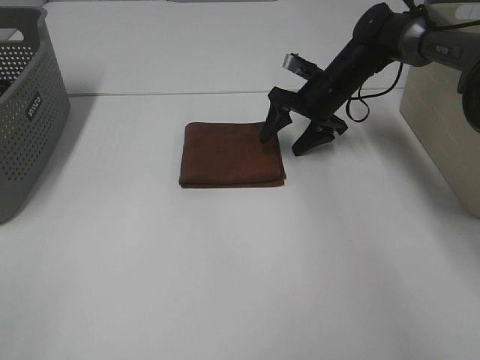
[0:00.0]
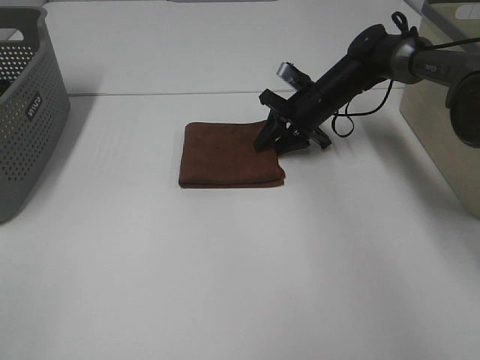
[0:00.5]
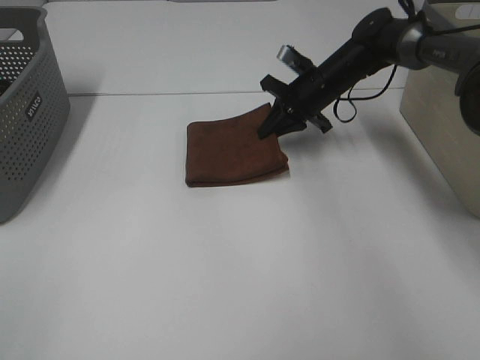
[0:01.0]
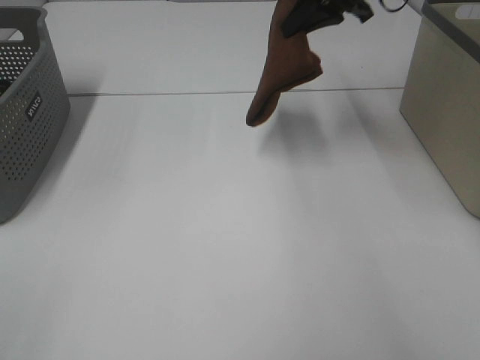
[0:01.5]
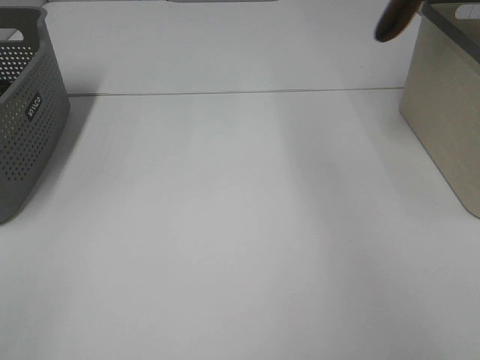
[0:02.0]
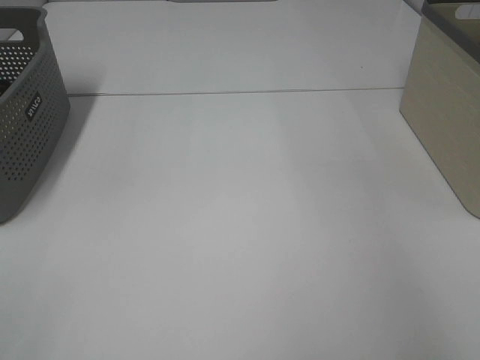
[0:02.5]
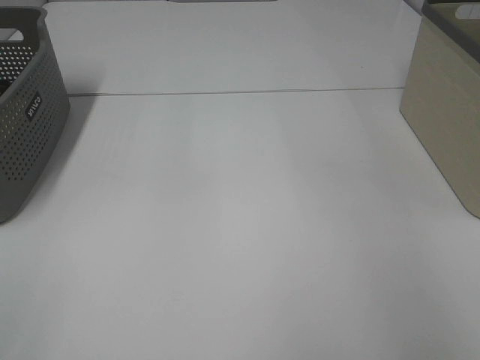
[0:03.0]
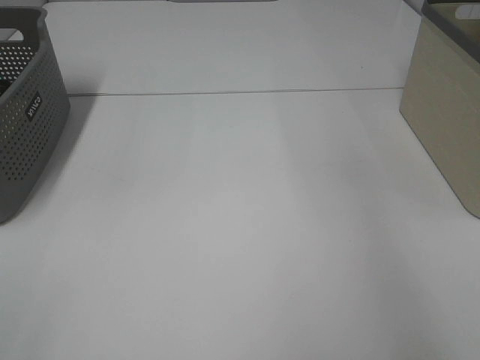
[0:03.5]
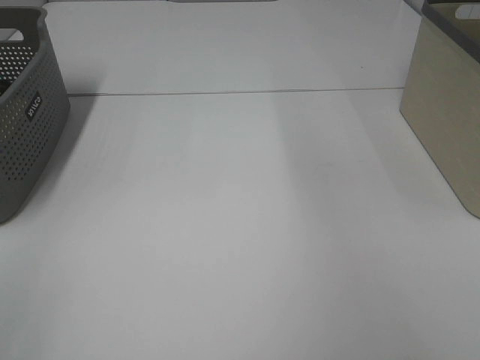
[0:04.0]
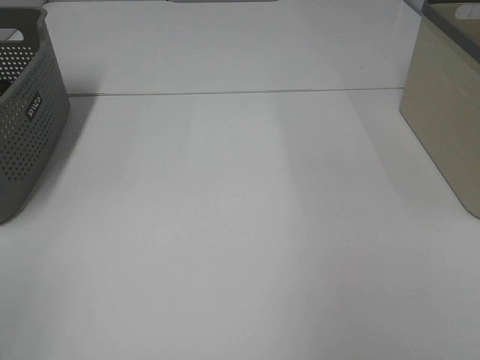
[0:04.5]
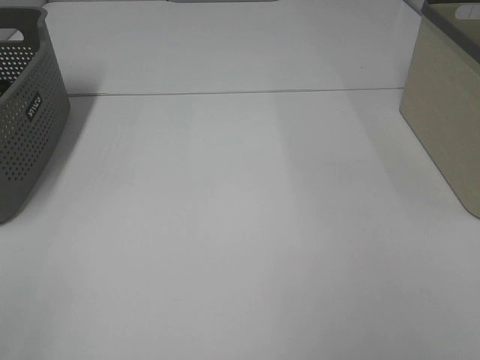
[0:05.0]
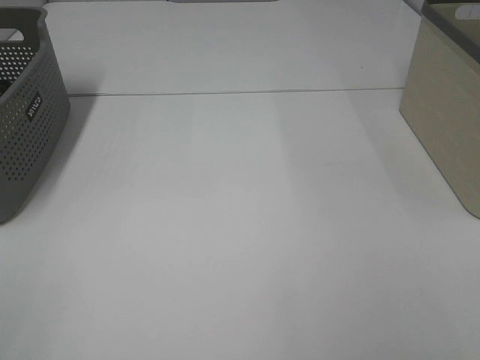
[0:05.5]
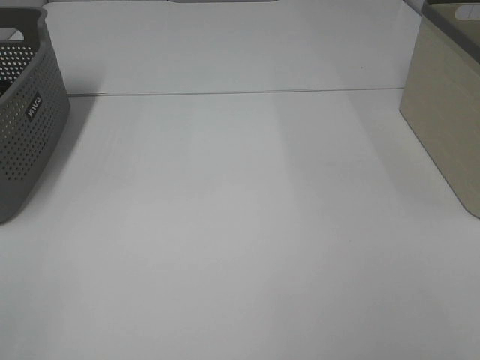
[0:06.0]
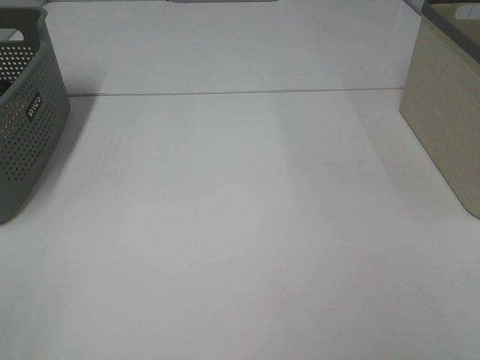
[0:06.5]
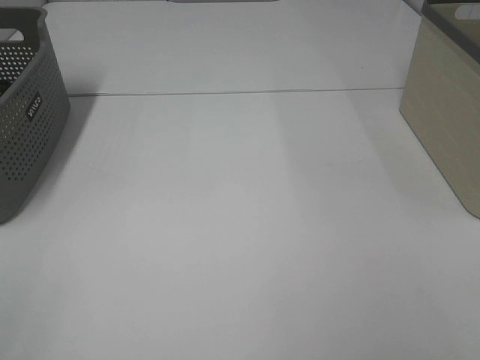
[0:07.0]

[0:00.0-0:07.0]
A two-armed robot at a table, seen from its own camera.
Step, 1.0 to 3.0 s: Right hand: place the brown towel in right basket.
0.0 to 2.0 s: The right gripper is displaced upward and to the right by roughly 35 cm, and closes its fingers.
2.0 to 3.5 s: The right gripper goes approximately 10 cm downward and to the right, and opens.

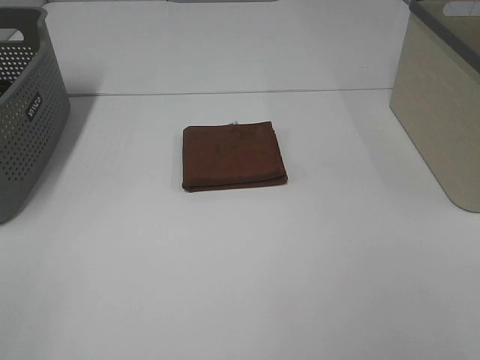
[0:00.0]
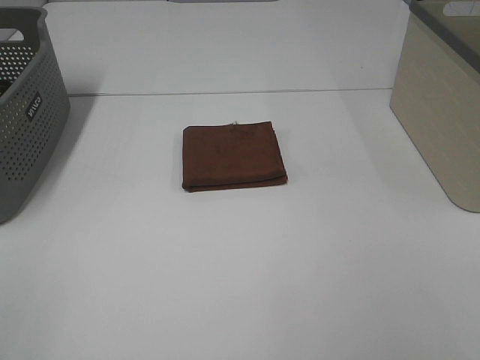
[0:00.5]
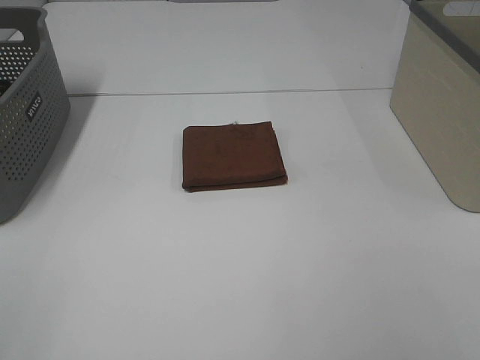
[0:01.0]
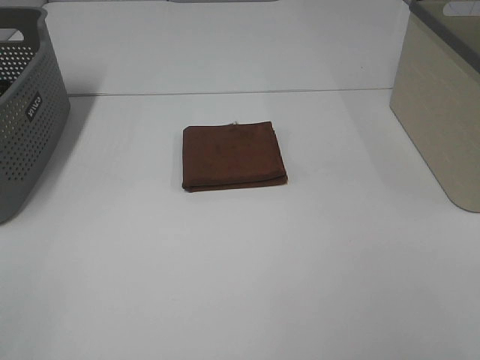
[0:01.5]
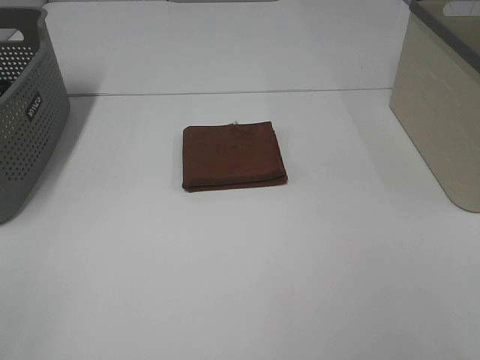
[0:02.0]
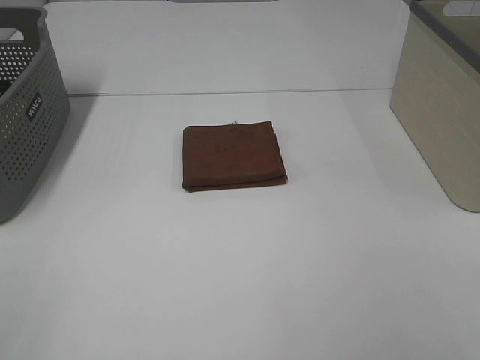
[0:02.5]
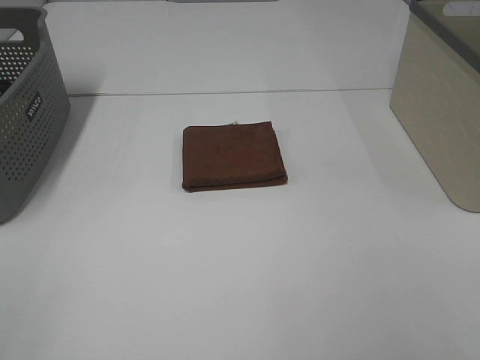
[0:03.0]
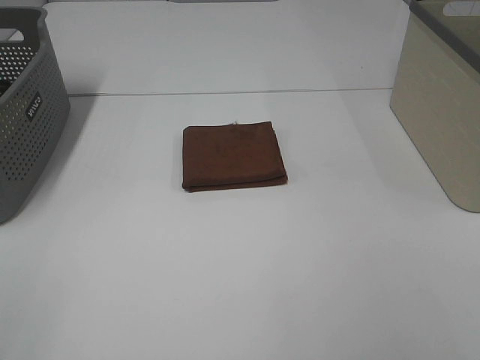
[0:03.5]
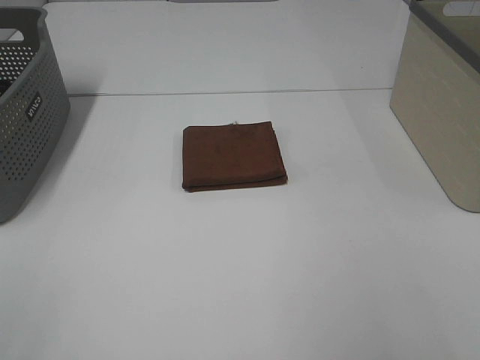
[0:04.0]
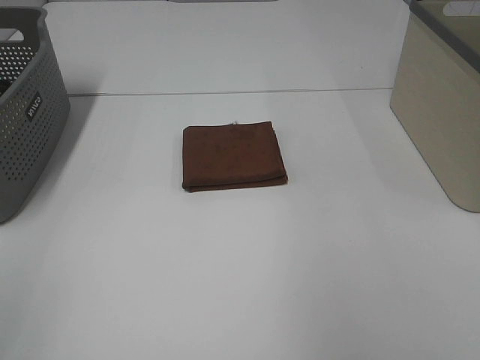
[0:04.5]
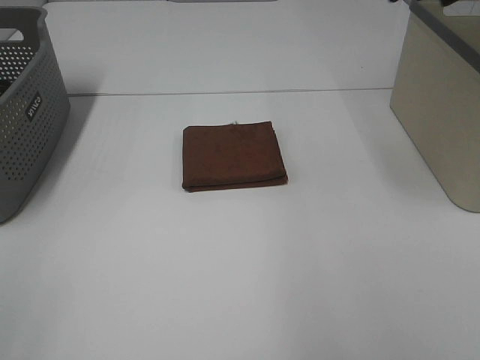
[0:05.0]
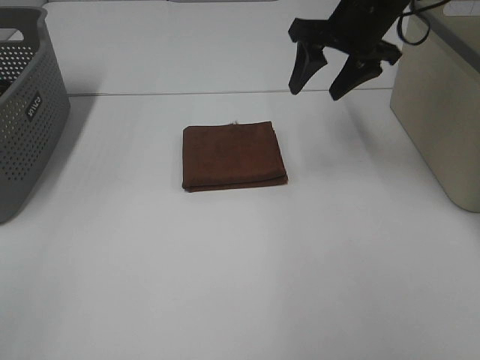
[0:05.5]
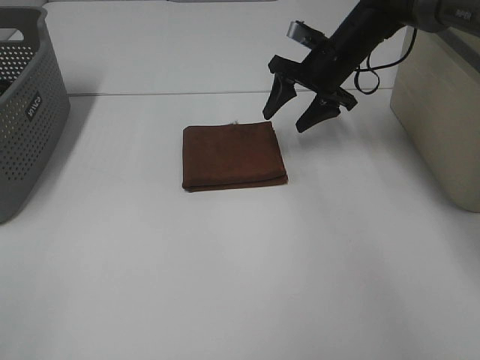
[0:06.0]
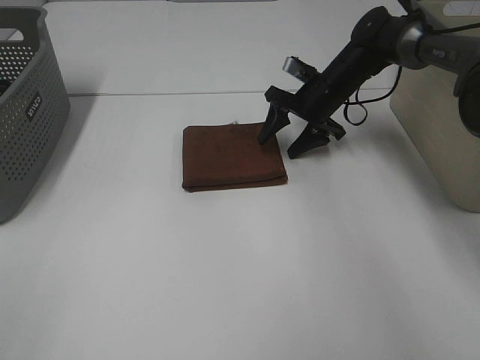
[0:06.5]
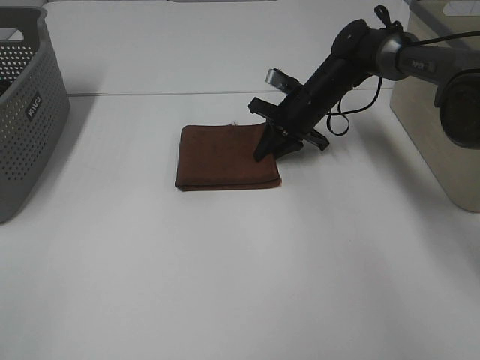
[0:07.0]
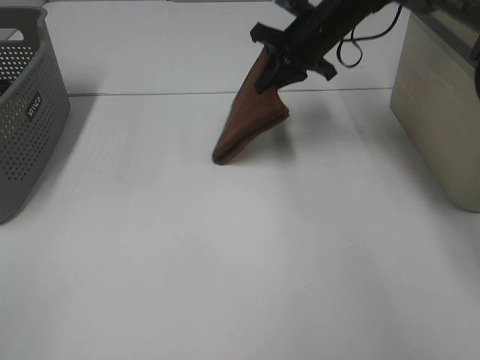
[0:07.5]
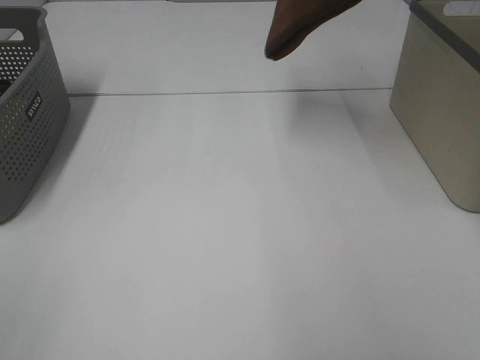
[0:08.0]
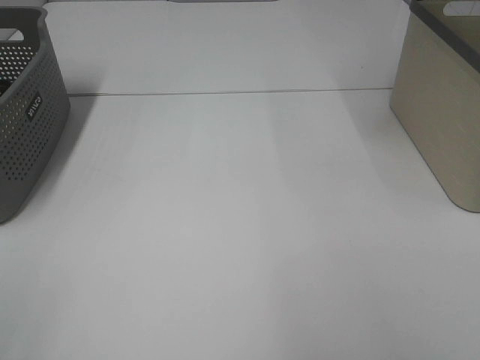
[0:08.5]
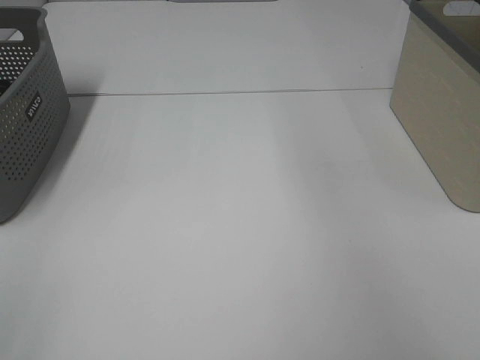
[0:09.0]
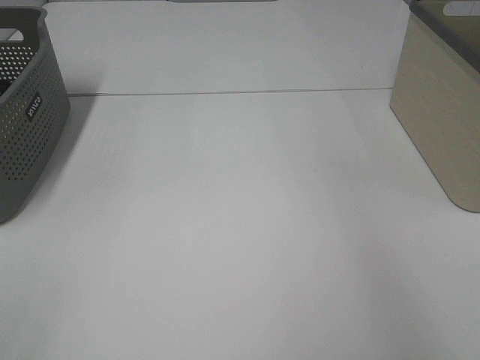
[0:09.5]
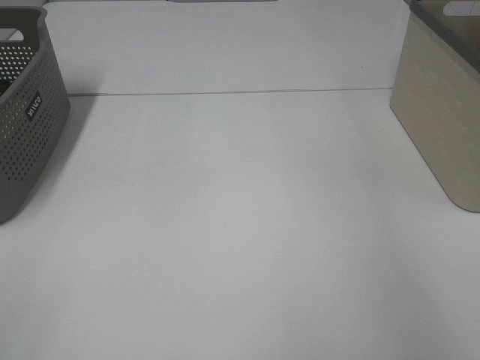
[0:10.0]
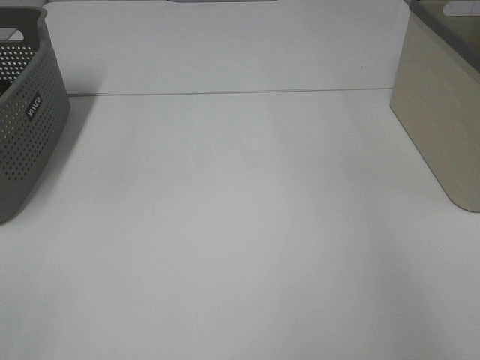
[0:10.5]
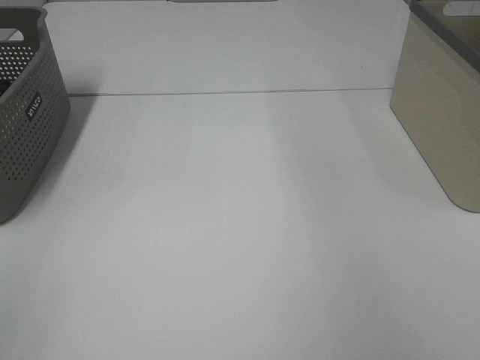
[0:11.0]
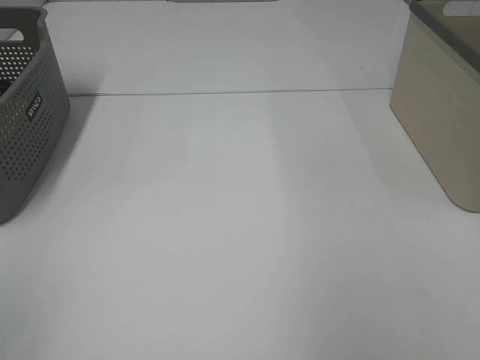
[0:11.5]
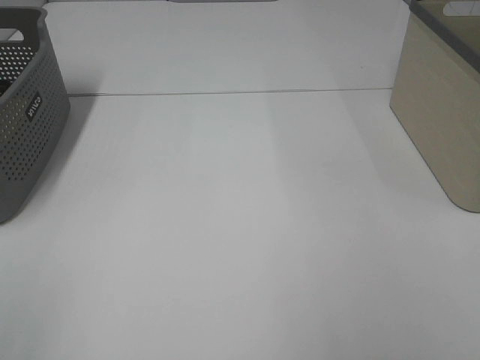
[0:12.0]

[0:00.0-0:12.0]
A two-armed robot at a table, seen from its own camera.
Step, 0.0 to 7.0 s: Right hand: grab the folded brown towel.
Step, 7.5 to 10.0 s: Right hand: place the brown towel in right basket.
0.0 to 2.0 s: Both grippers stay about where they are.
4.0 to 6.0 s: The right gripper travels forward by some 40 cm.
6.0 to 8.0 s: The right gripper moves upward, roughly 25 cm, and closes its fingers.
8.0 to 10.0 s: The right gripper moves to the right, approximately 25 cm, and opens up.

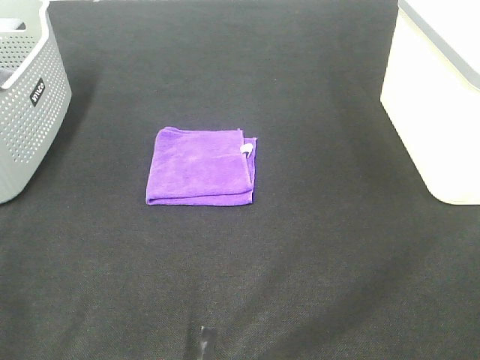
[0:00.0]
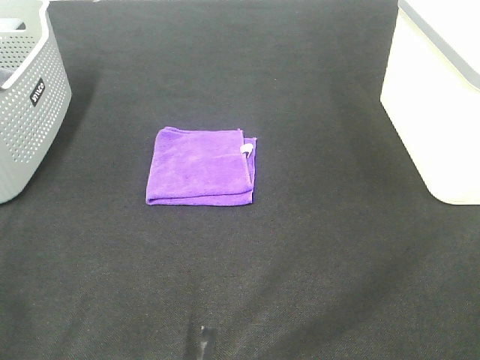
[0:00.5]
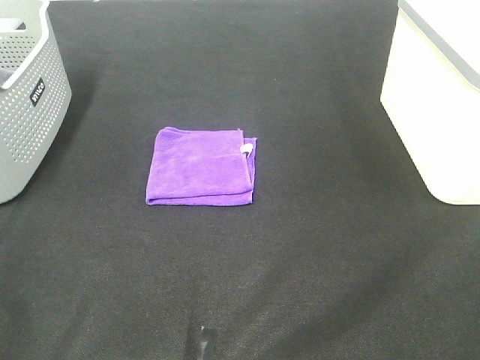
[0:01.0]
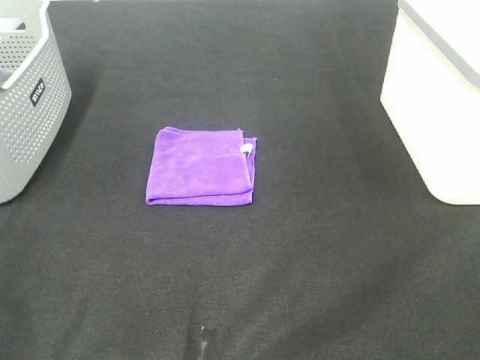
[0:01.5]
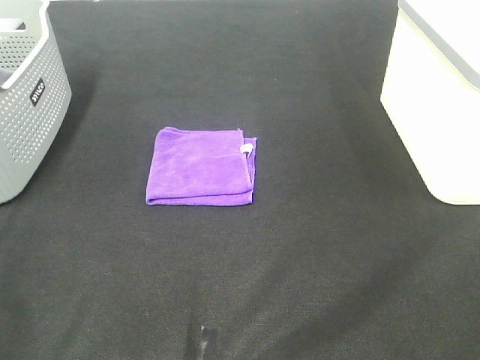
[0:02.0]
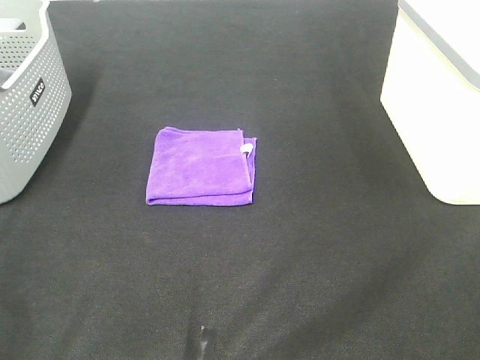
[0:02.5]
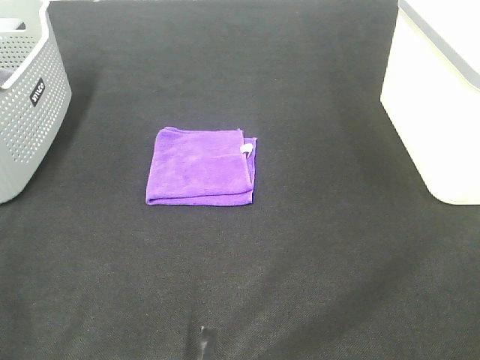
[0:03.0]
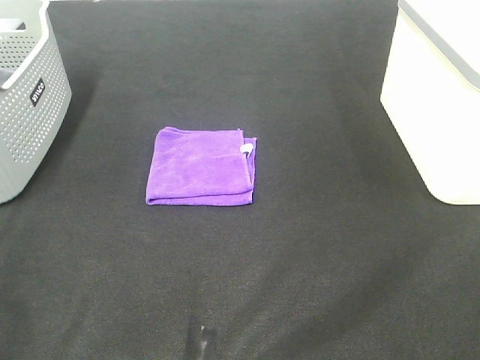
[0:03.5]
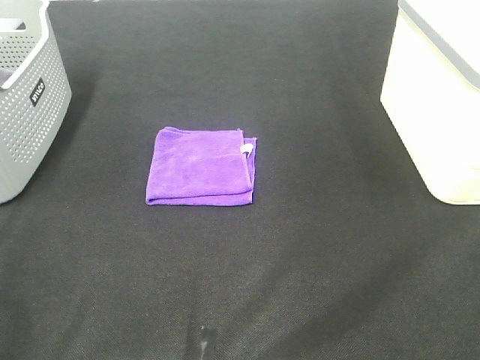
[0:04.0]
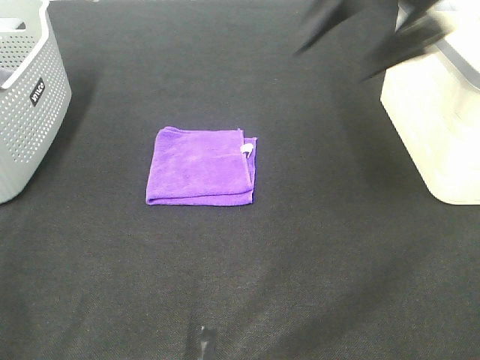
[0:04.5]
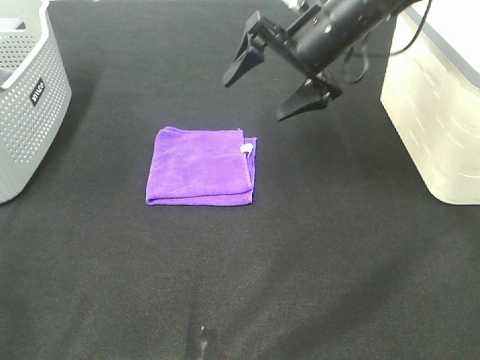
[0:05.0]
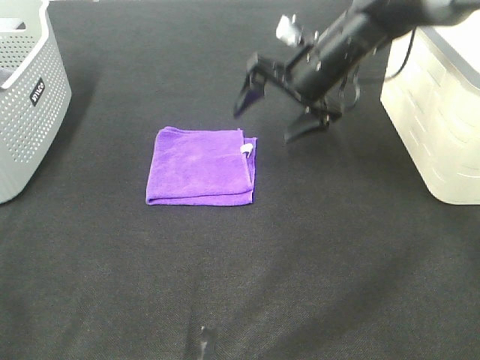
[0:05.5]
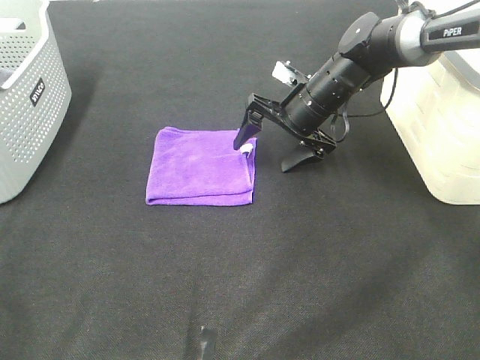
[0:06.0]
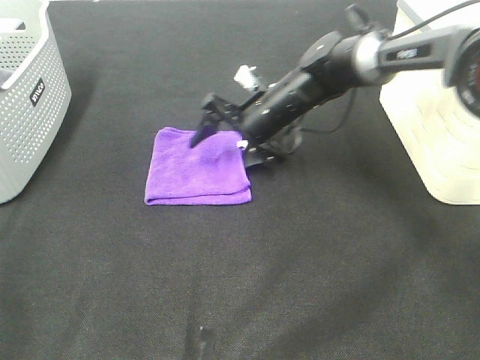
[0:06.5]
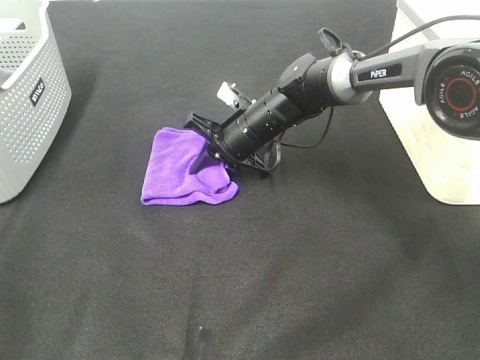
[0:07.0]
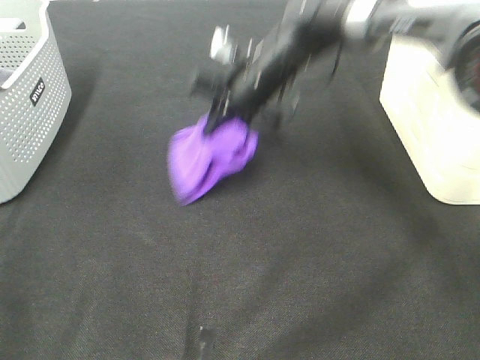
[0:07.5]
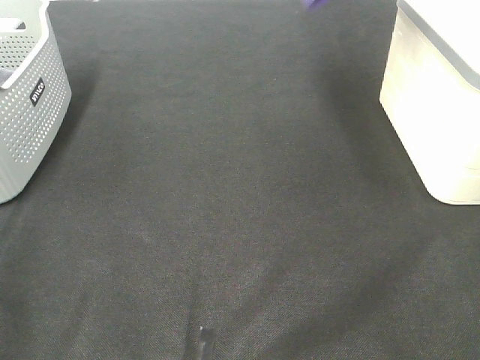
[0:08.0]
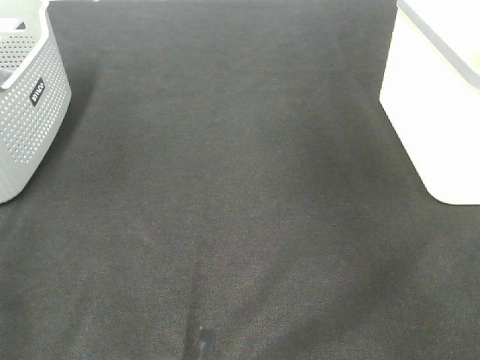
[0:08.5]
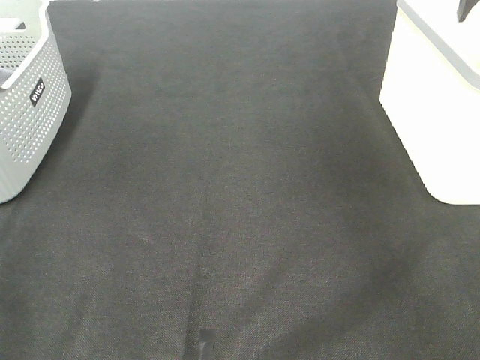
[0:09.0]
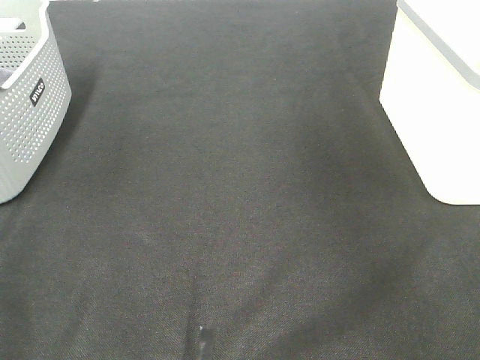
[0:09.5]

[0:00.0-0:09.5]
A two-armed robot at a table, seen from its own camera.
Step, 0.0 to 7.0 s: Right hand: grab the folded purple towel.
Step, 7.5 to 9.0 s: Right hand: place the purple towel in right basket.
0.0 to 2.0 s: Both grippers stay about where they are.
4.0 to 5.5 s: The right gripper shifts roughly 40 cm forward, downward and to the left.
5.5 to 7.5 s: The right gripper goes some 5 cm to the left, travels downward and back again, about 10 cm each way, and closes up.
7.5 to 9.5 s: The right gripper moves to the right and upward, some 35 cm, and opens its fingers.
